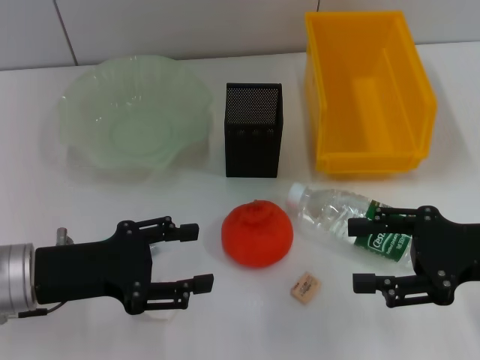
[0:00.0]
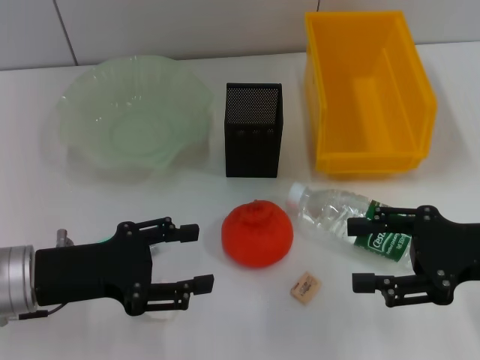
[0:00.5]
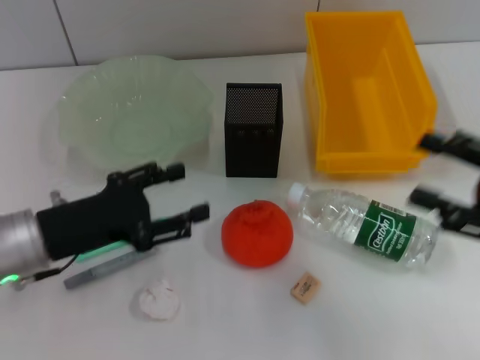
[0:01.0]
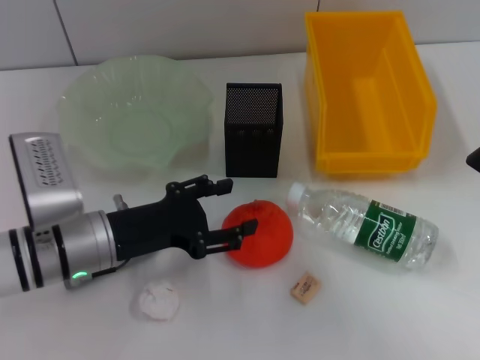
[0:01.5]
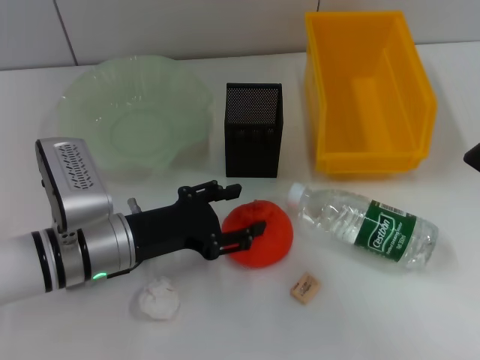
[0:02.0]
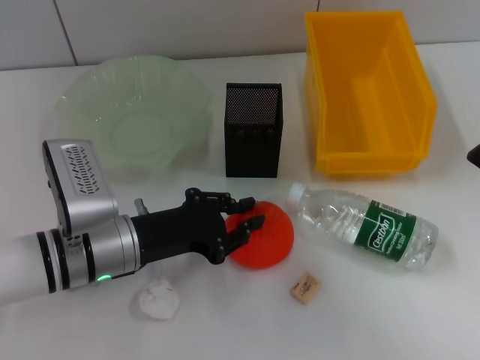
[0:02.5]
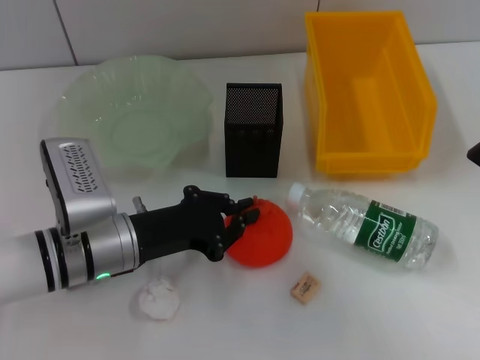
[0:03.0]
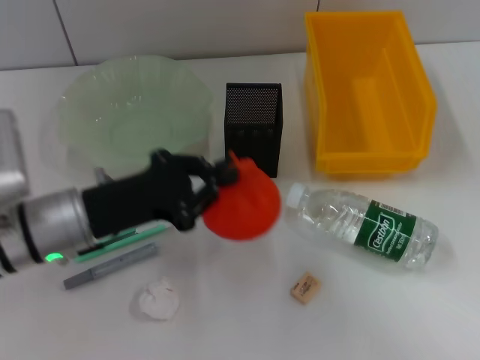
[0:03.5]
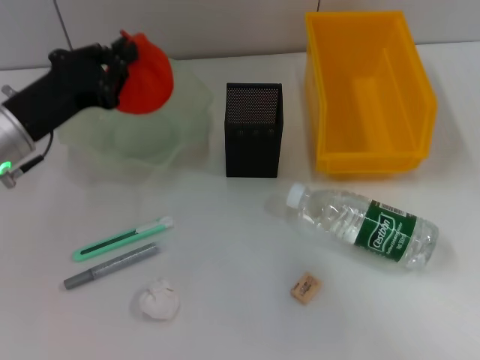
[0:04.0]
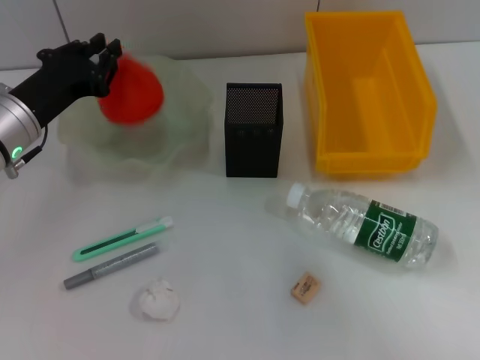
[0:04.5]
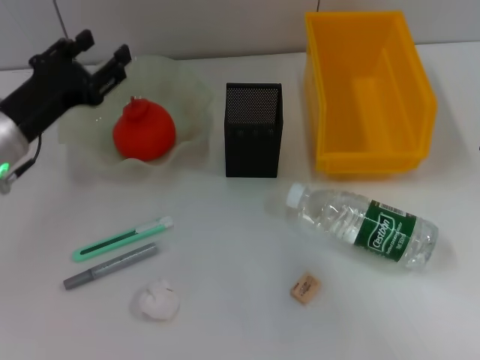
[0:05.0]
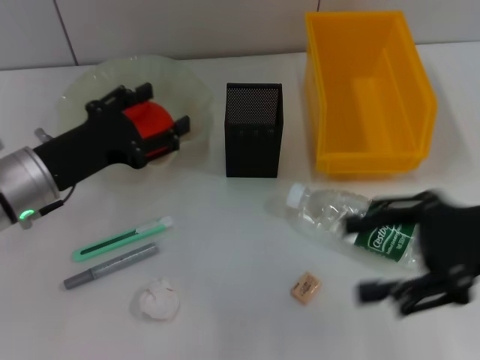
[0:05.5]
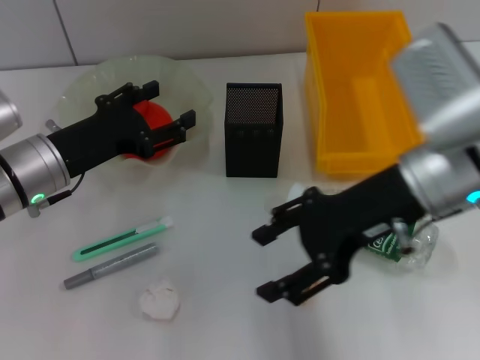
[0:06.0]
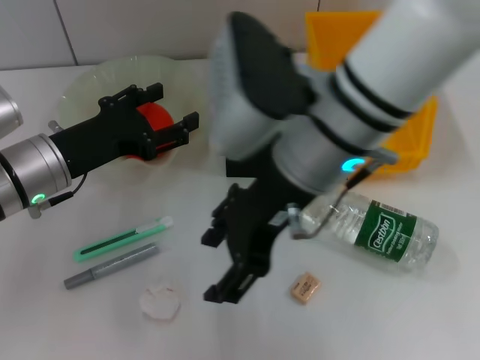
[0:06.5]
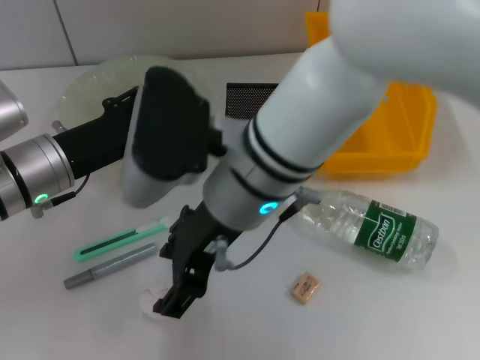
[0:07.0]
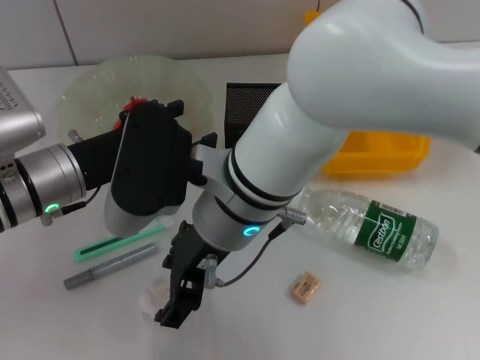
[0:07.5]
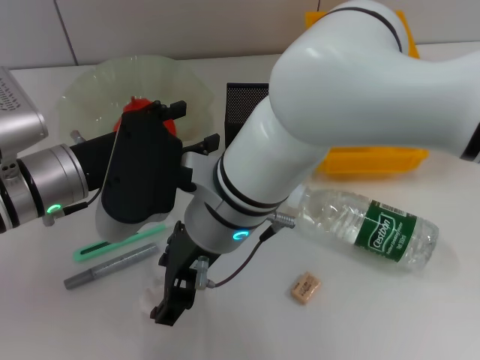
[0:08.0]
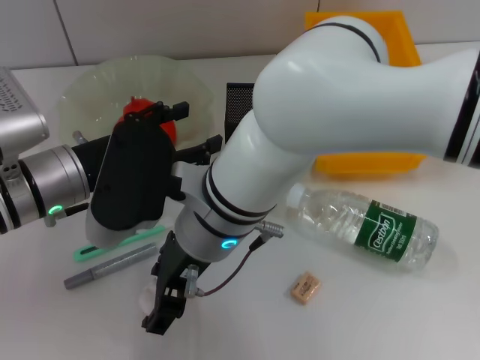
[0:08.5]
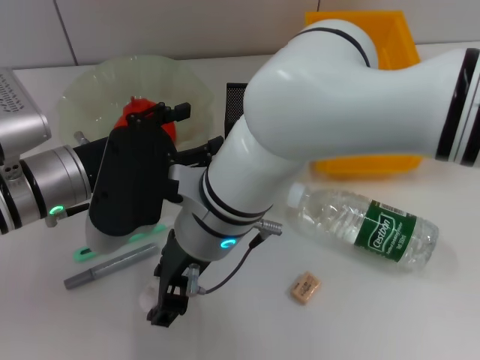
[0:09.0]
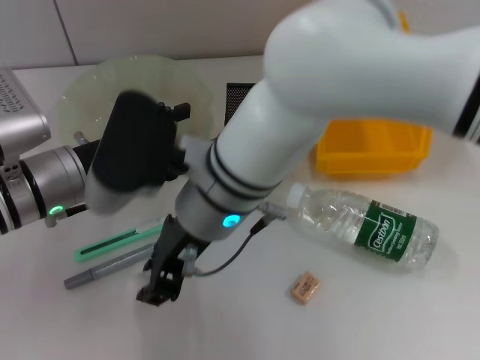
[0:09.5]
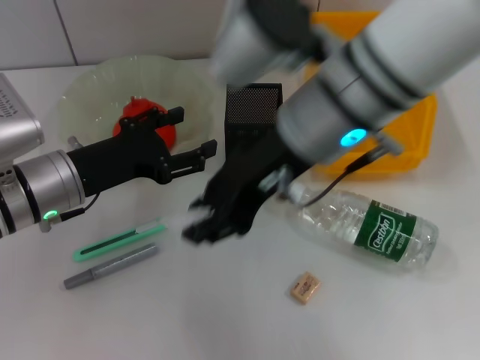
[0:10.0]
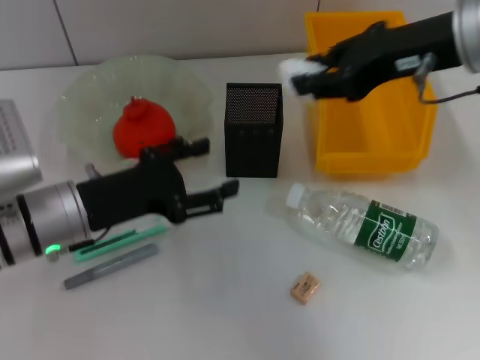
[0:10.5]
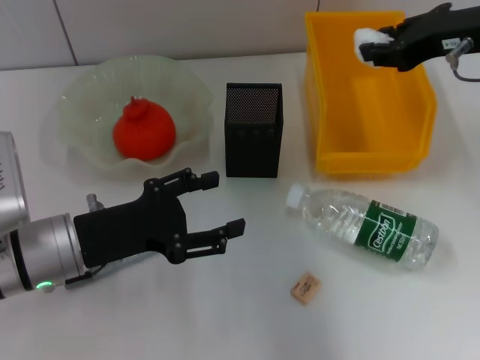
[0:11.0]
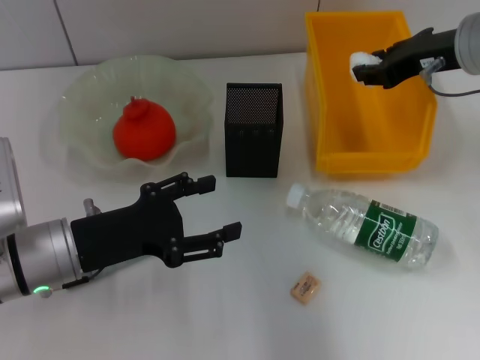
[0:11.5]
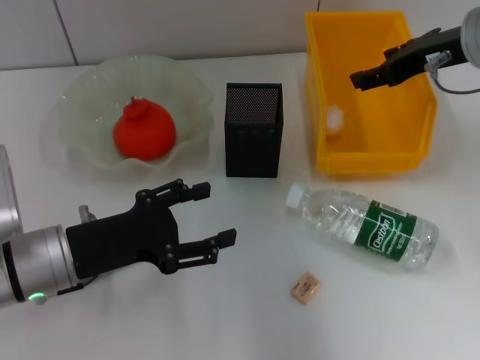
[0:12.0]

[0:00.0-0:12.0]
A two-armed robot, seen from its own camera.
Step, 0:00.0 to 0:02.5: Grab the orange with the left hand.
Step, 0:03.0 to 0:04.5: Place the orange into the fruit bowl with the left hand.
Step, 0:05.0 to 0:09.0: Grab the paper ball with the right hand.
Step, 0:09.5 to 0:11.5: Place the paper ball into the trash can with the right hand.
0:00.0 to 0:02.0: The right gripper ends up about 5 cm from where it was; the left gripper goes about 5 cm to the right.
0:02.0 to 0:04.0: The left gripper travels to the left, upward and forward by roughly 10 cm, and closes up.
0:04.0 to 0:06.0: The right gripper is displaced to the left and forward by some 20 cm, while the left gripper opens up.
0:06.0 to 0:08.0: The right gripper goes approximately 20 cm to the left.
0:08.0 to 0:10.0: The right gripper moves to the right and upward, about 10 cm, and closes its fingers.
0:10.0 to 0:12.0: The right gripper shifts roughly 20 cm to the right and forward, and opens; the left gripper moves backward, about 5 cm.

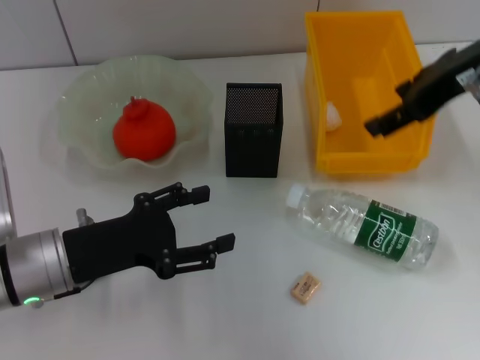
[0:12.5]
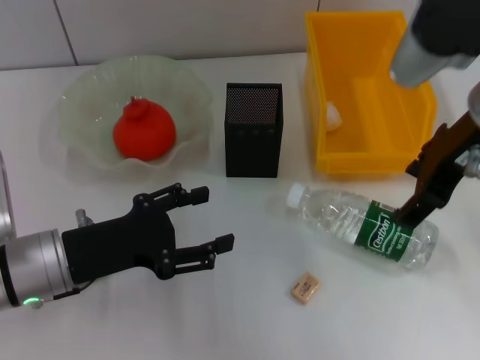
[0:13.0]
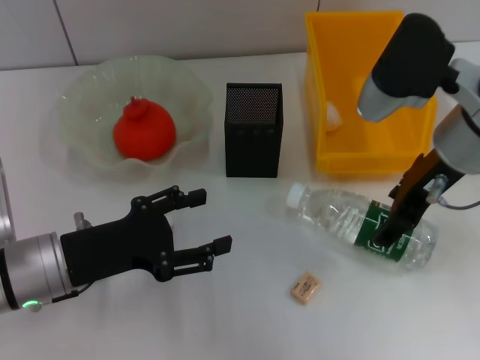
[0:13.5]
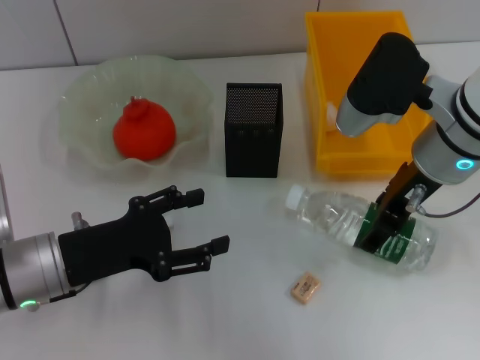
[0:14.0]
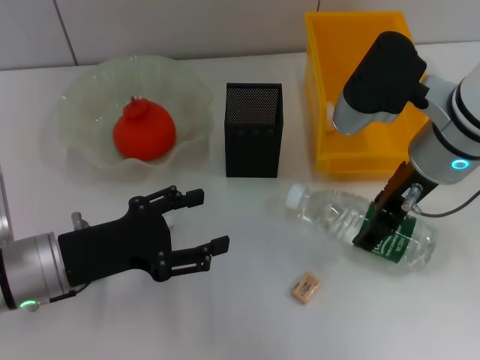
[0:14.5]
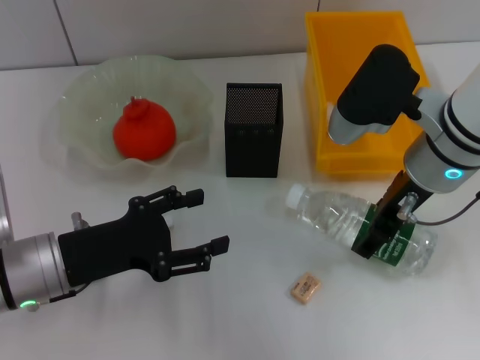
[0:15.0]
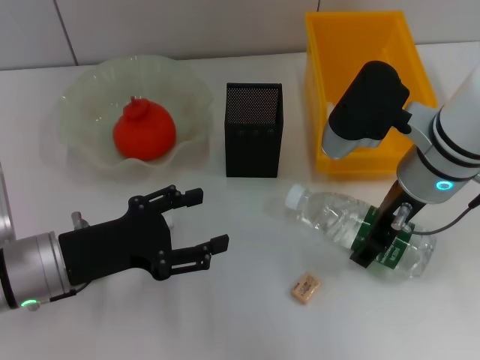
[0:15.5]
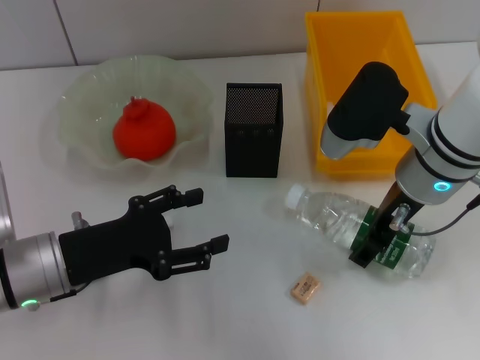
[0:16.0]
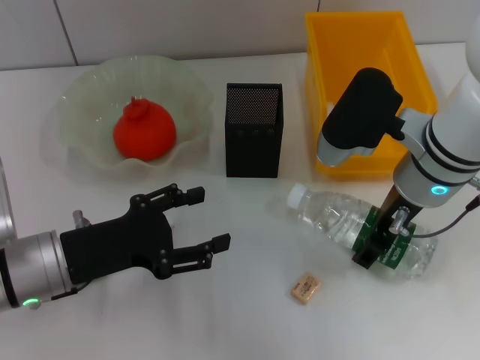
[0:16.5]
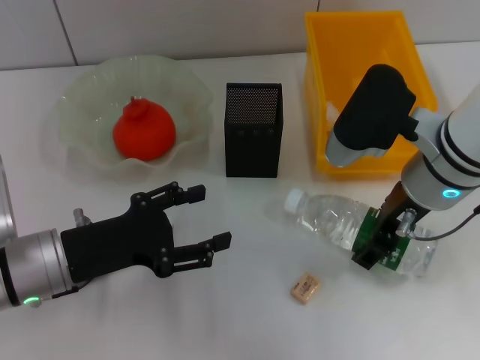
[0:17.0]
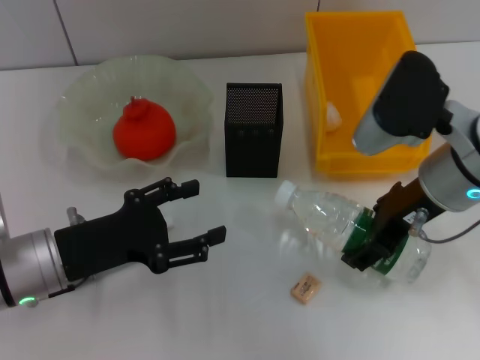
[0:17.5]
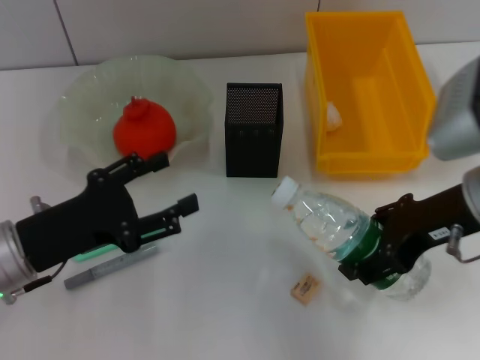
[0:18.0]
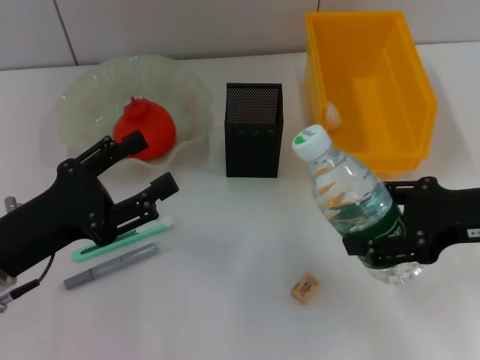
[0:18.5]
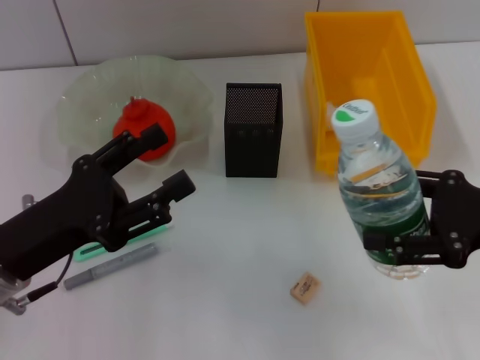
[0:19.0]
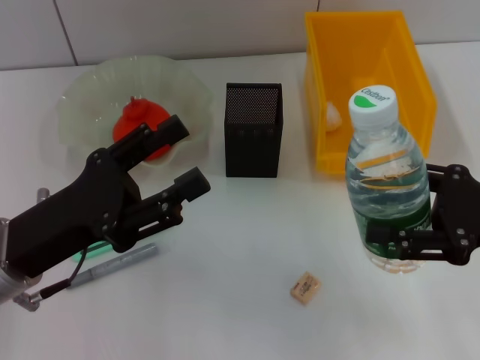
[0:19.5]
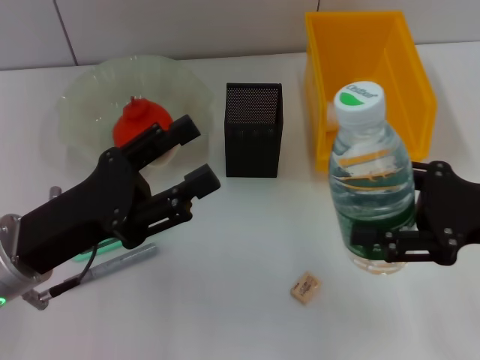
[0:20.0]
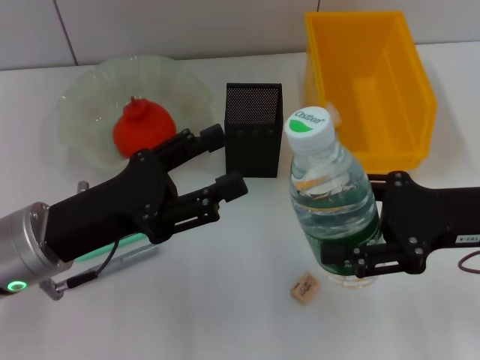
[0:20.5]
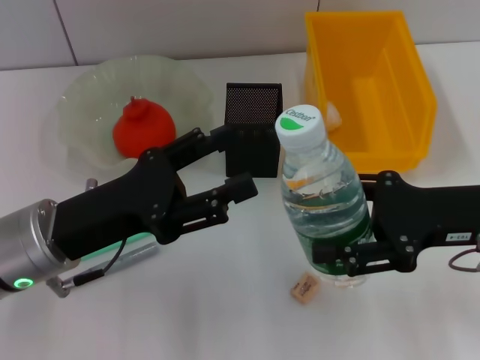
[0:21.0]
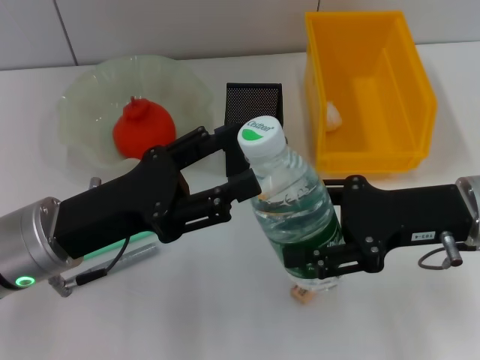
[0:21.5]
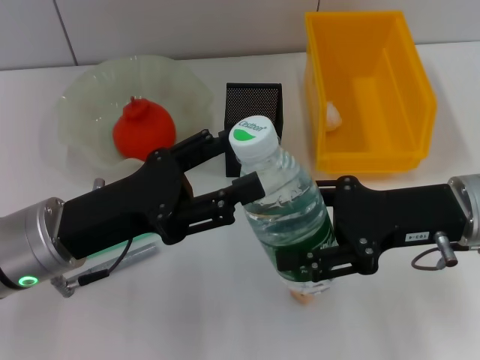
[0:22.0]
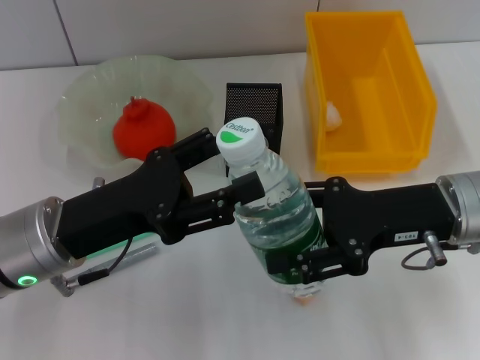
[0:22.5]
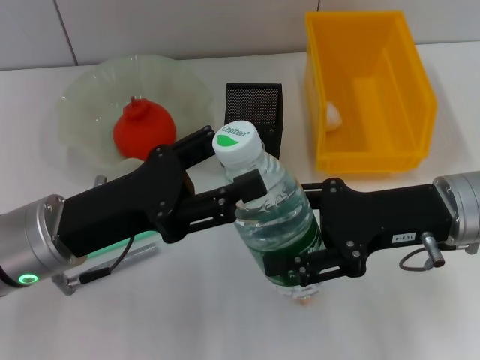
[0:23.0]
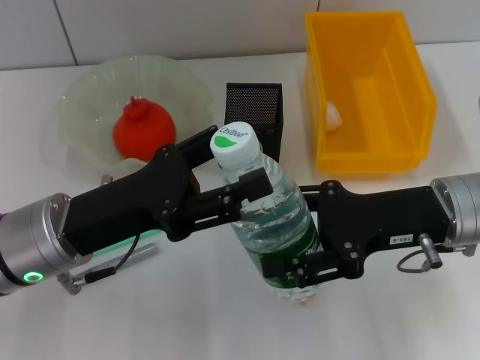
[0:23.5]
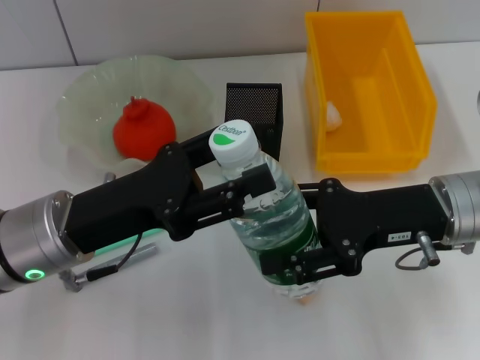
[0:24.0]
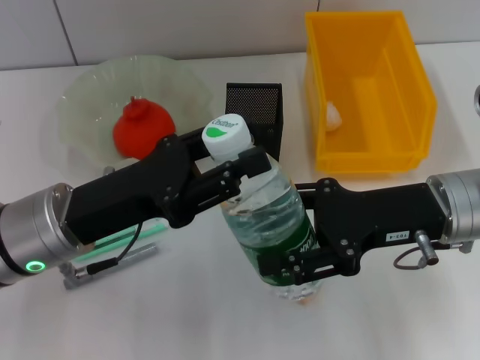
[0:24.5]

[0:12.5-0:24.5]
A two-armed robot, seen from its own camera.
Step, 0:12.5 to 0:16.5: Grab the water bottle with the right hand.
0:12.5 to 0:14.5: The right gripper is displaced downward and to the left by roughly 10 cm.
0:14.5 to 0:16.5: There are only small adjustments of the grippers.
0:16.5 to 0:18.5: The right gripper is displaced to the right and backward by roughly 15 cm.
0:18.5 to 0:20.5: The left gripper ends up approximately 5 cm from where it was.
0:20.5 to 0:22.5: The right gripper changes place by roughly 5 cm.
0:22.5 to 0:24.5: The left gripper closes up.

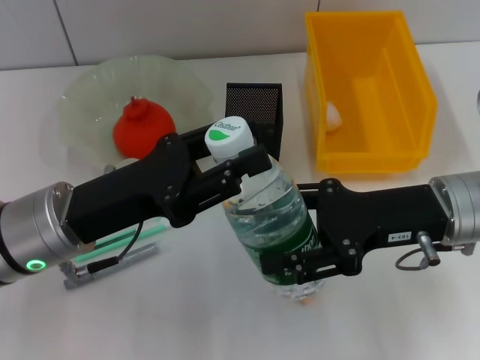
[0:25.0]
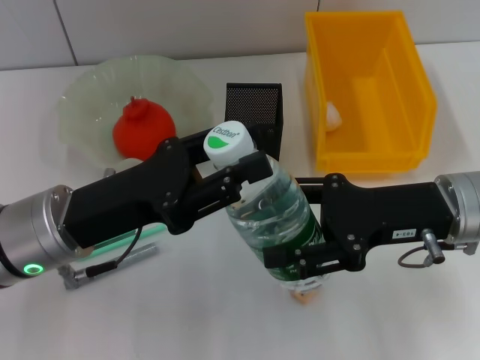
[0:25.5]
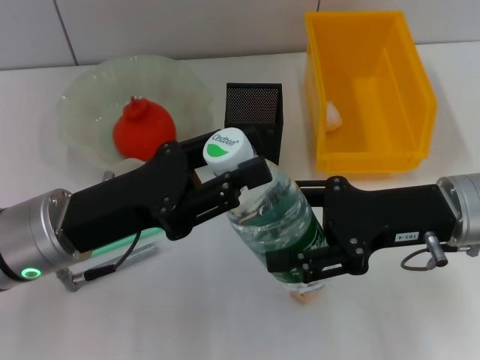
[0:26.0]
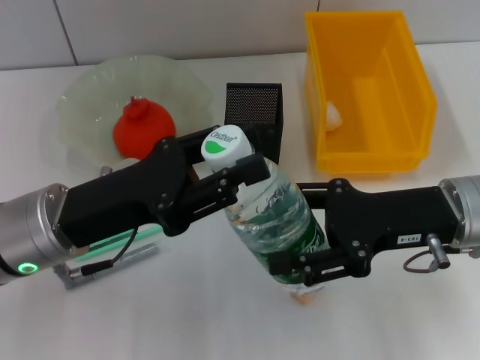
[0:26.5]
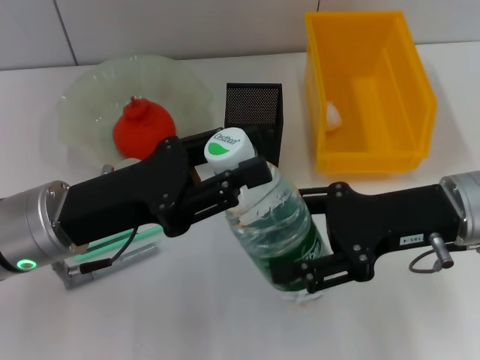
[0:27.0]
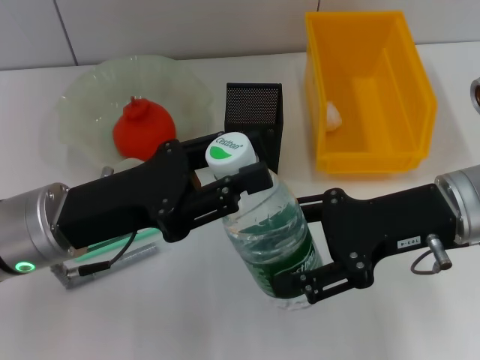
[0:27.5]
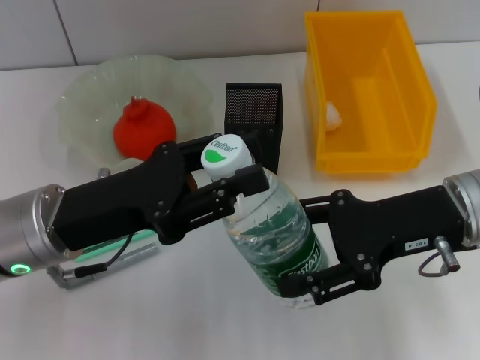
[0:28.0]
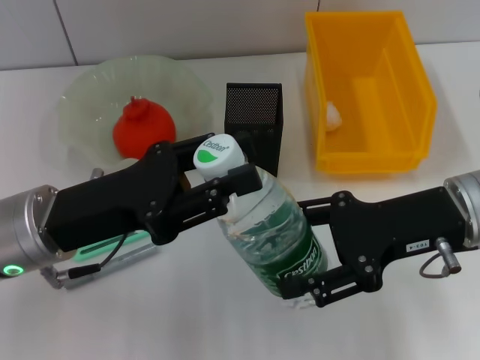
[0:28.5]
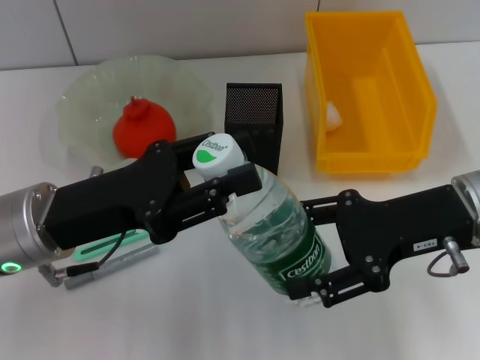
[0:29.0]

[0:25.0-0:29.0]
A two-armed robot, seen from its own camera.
0:25.0 to 0:27.0: Neither gripper changes place.
0:27.0 to 0:29.0: There are only small adjustments of the grippers.
